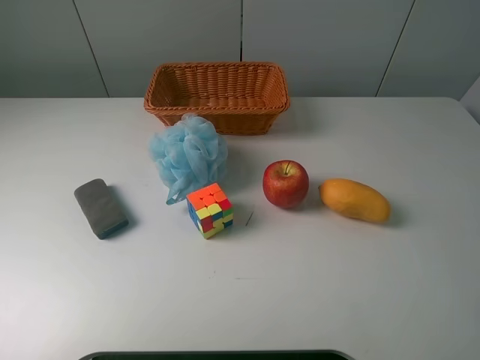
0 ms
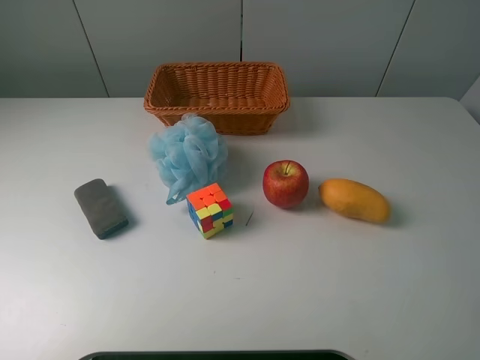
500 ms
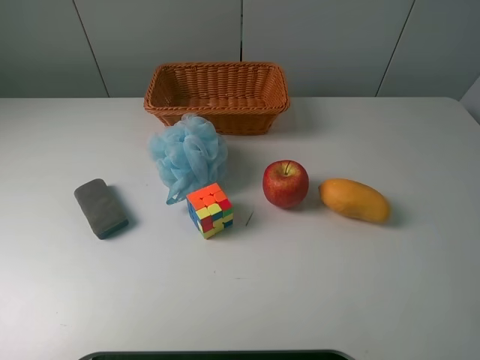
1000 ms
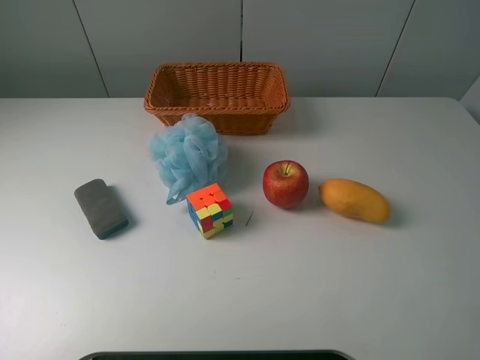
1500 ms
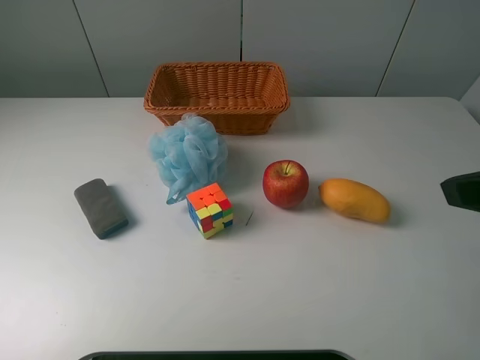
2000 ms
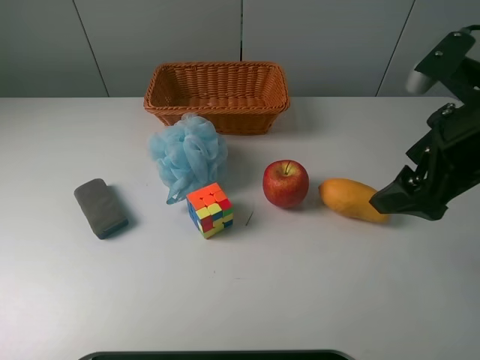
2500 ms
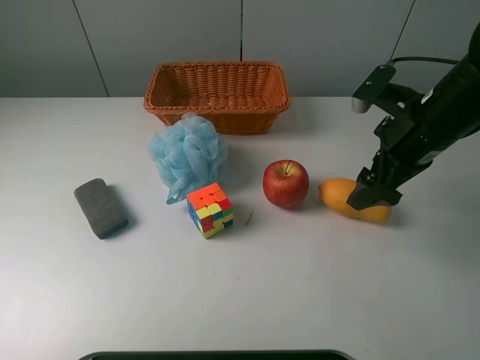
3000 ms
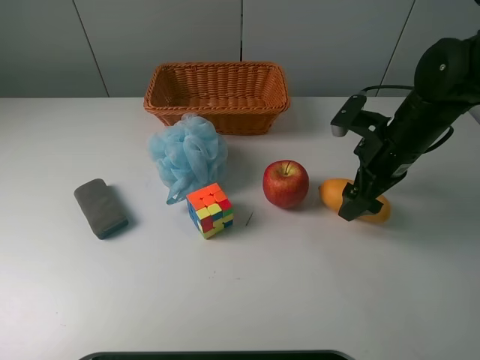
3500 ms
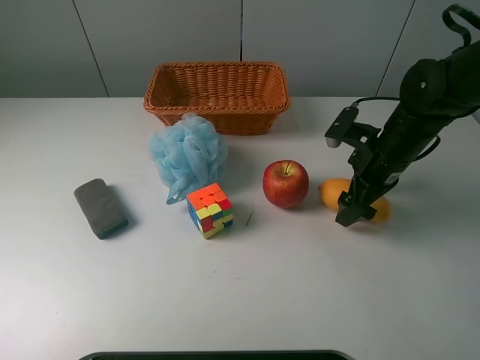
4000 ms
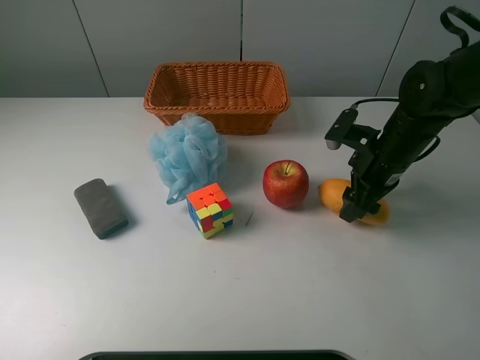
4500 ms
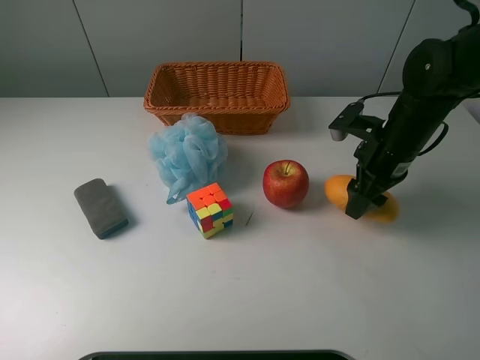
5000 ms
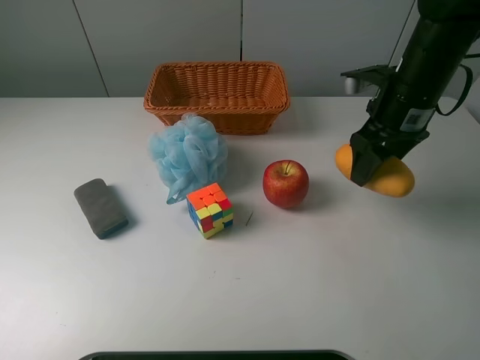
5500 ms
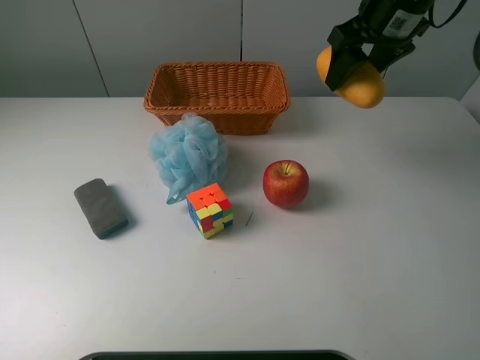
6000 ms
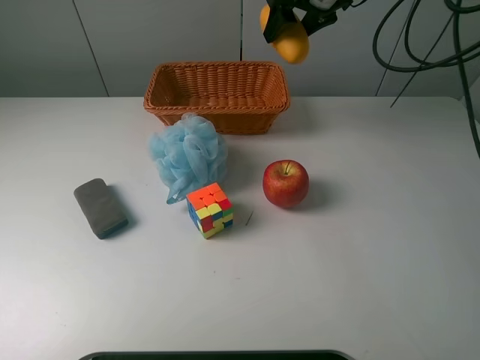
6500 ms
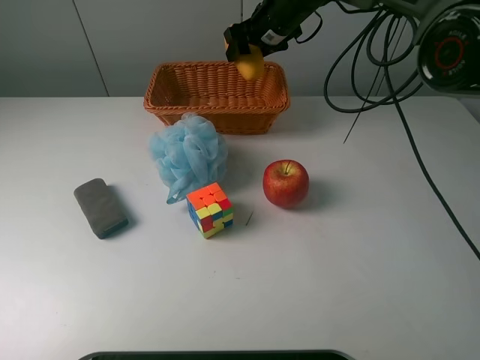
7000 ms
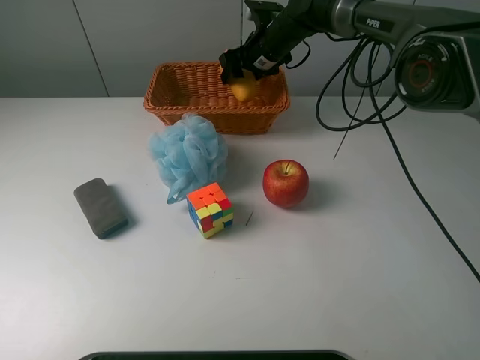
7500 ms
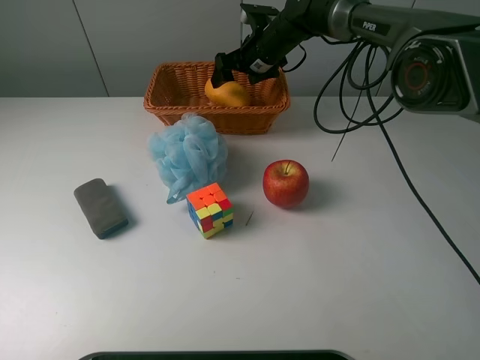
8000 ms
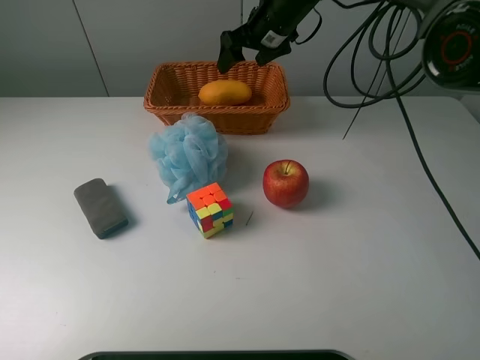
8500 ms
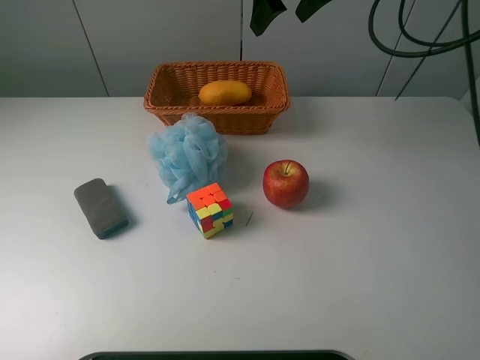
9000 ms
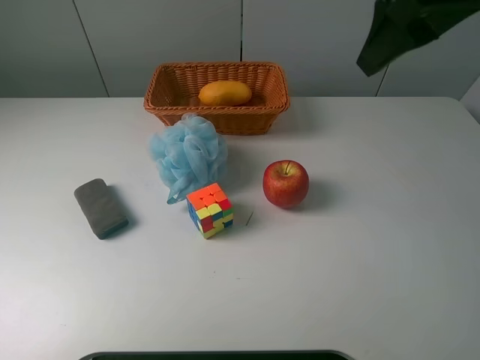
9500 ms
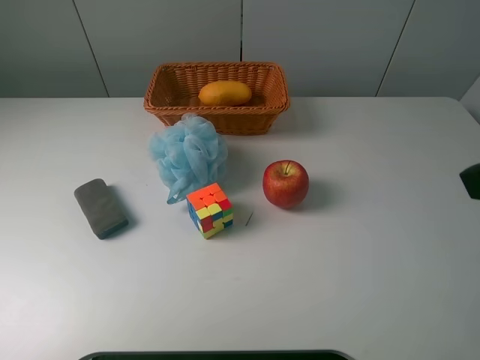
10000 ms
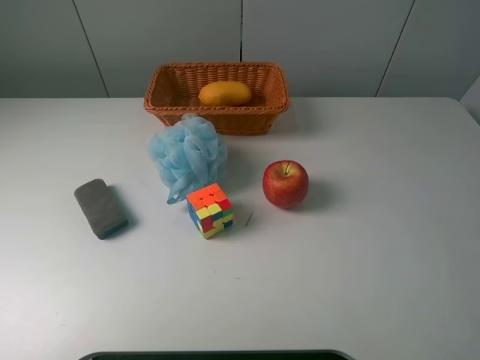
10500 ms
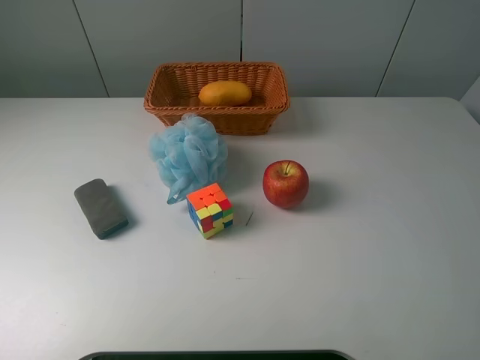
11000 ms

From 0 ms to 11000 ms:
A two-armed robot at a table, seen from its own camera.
Task of the whole recording: use a picker to grab the item closest to the apple and place it in the basket.
Step, from 0 ms to 4500 ms: Grasp the mango with the right gripper.
Step, from 5000 ms to 8500 ms: Place the mango into the basket with the right gripper.
From 0 ms to 2000 ms: The right gripper moves forward, approximately 10 cm.
From 2000 ms to 3500 ms: The right gripper is displaced forward and downward by roughly 25 cm.
From 3500 ms to 5500 ms: The right gripper goes some 5 cm upward, and closes.
From 5500 ms to 7500 ms: The right gripper heads forward and to the left, covering about 25 cm.
From 7500 ms to 9000 ms: The right gripper is displaced upward and backward by roughly 20 cm, and opens up.
From 9000 ms to 11000 ms: The right gripper goes about 40 cm backward.
